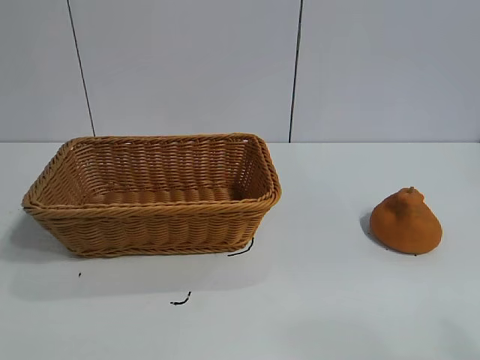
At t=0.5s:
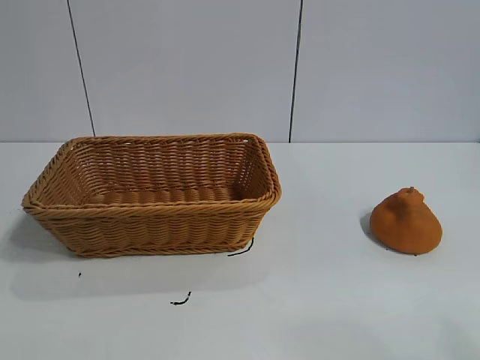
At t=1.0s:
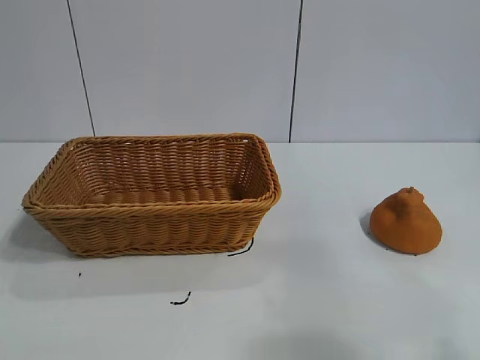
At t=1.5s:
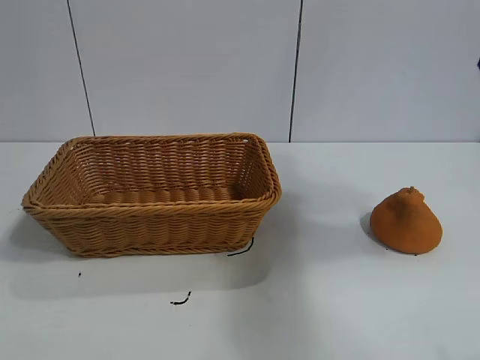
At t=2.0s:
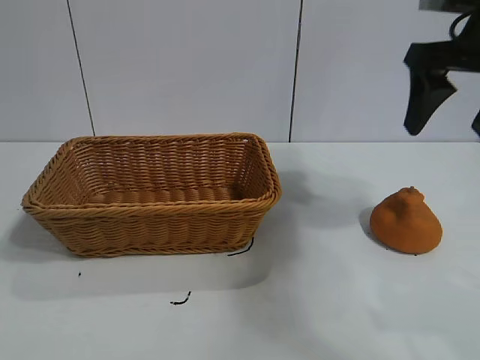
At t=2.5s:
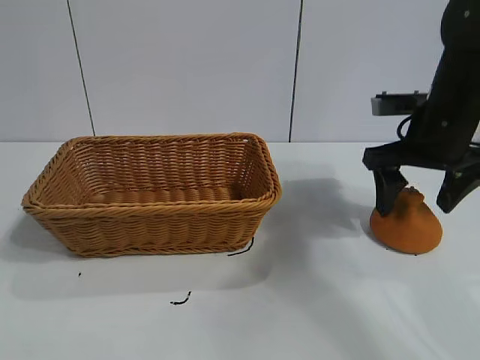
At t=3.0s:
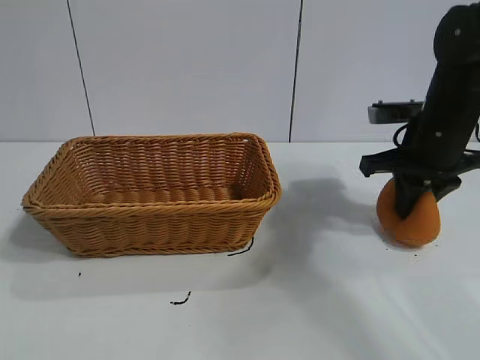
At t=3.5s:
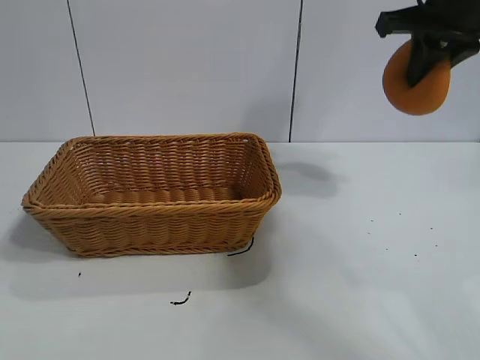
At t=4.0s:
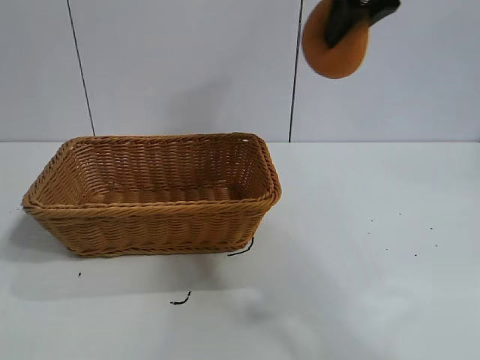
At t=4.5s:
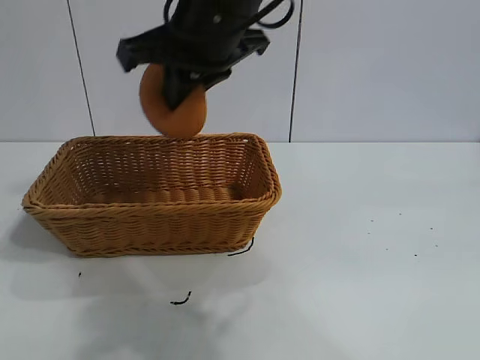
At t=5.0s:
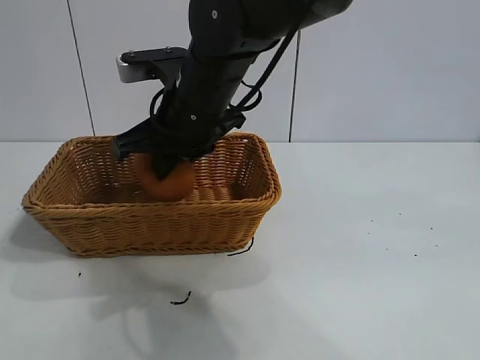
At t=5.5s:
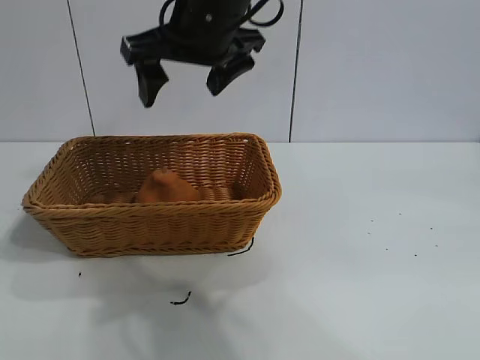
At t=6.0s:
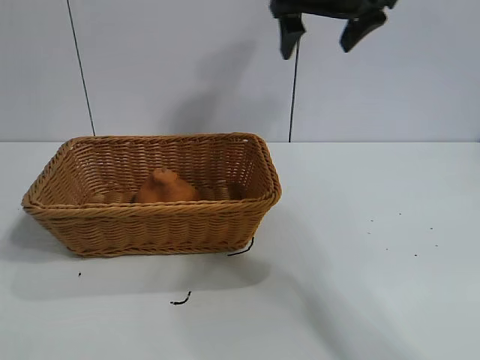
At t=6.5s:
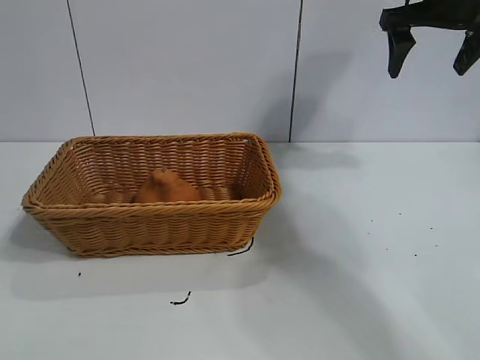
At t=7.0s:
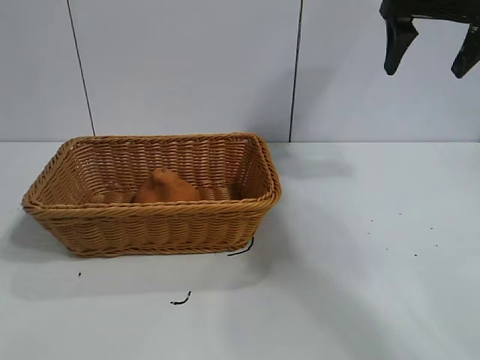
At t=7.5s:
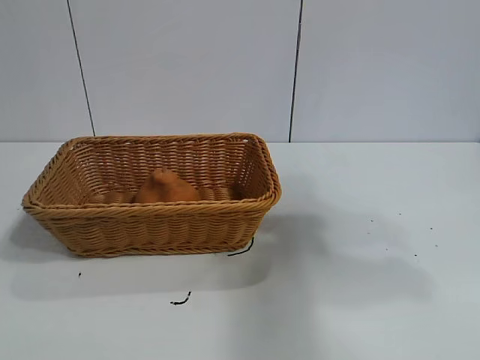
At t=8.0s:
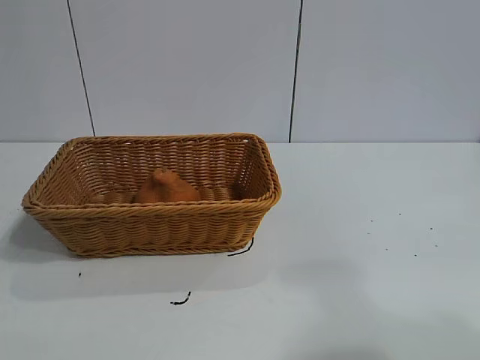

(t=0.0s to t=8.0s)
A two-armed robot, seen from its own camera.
Task of the whole recording: pick up the orange and put it into the basket.
Step, t=1.0s - t=3.0s: Grasp the orange with right gripper.
Step, t=3.5s - t=5.0s: Place the orange in the basket with right gripper.

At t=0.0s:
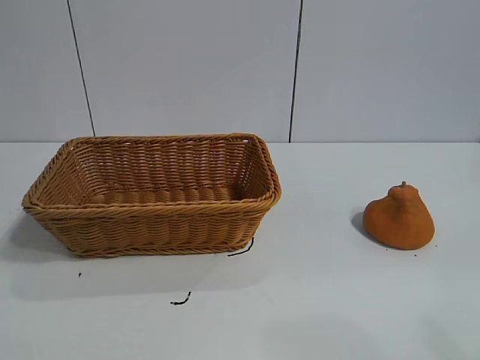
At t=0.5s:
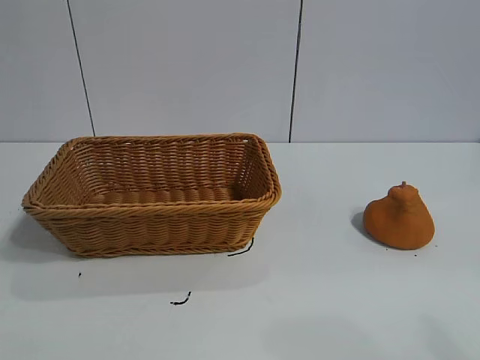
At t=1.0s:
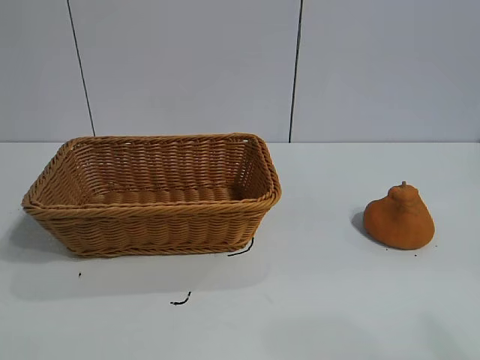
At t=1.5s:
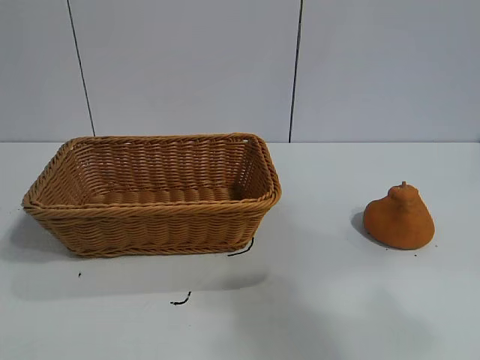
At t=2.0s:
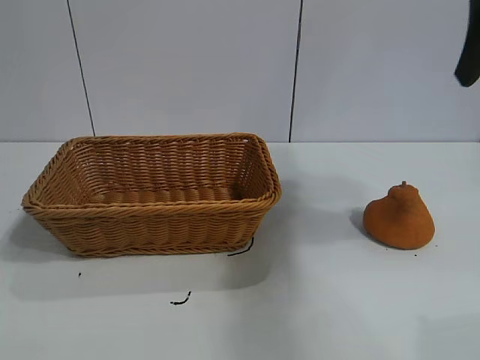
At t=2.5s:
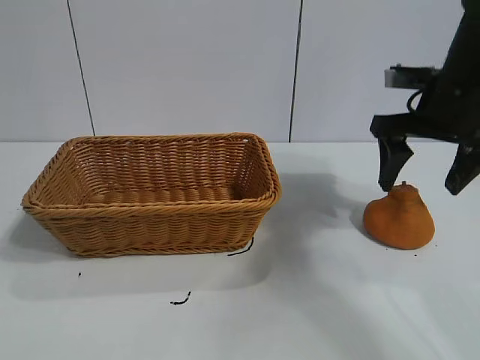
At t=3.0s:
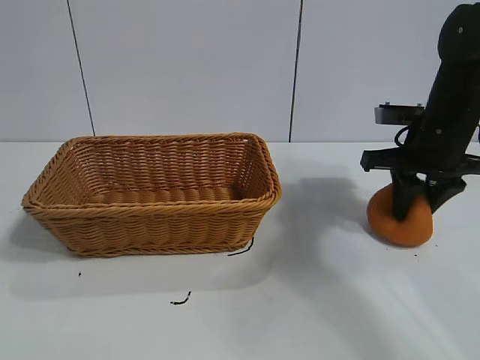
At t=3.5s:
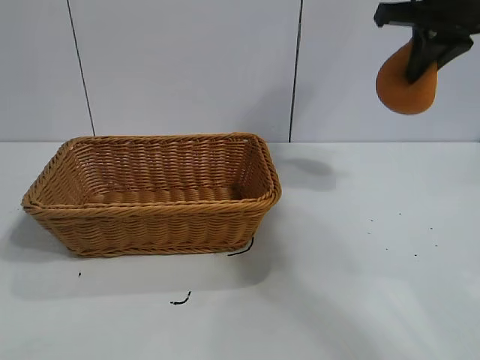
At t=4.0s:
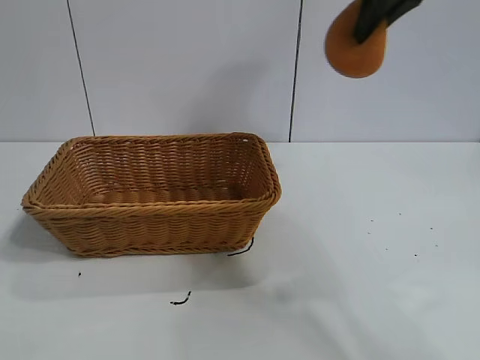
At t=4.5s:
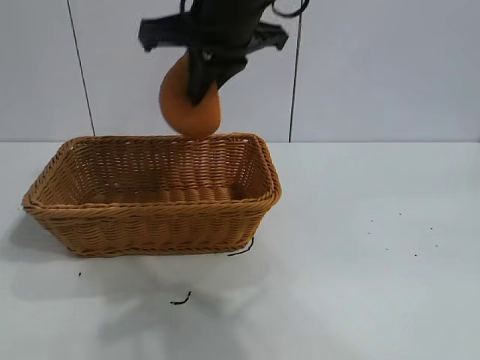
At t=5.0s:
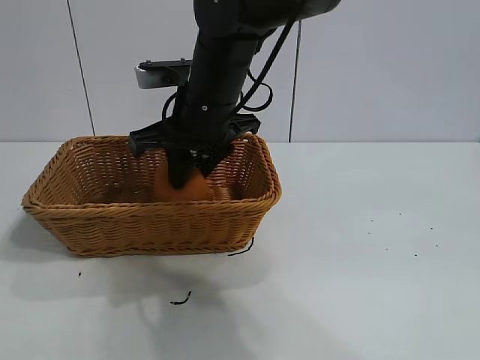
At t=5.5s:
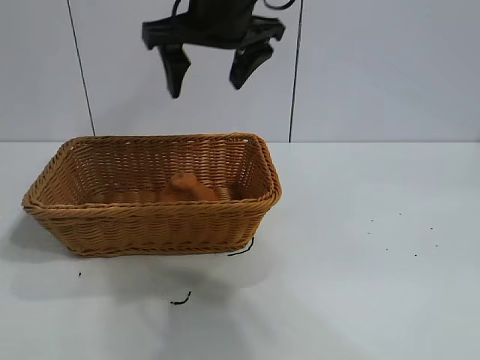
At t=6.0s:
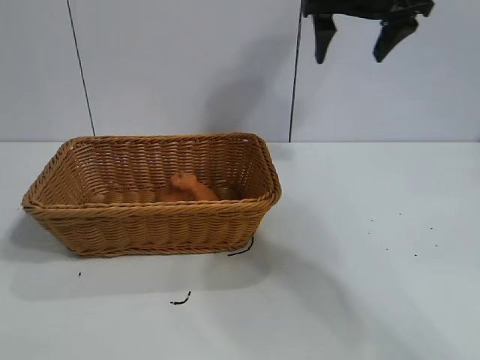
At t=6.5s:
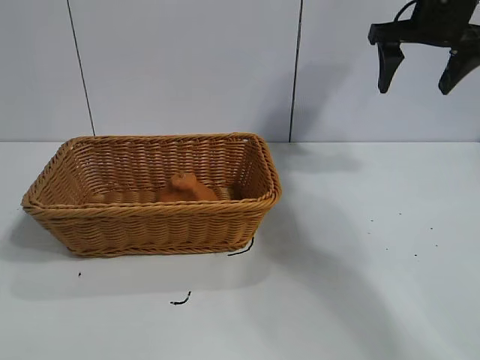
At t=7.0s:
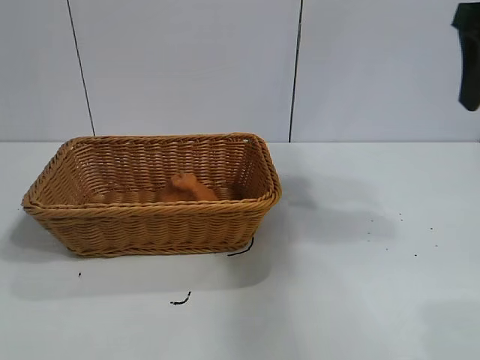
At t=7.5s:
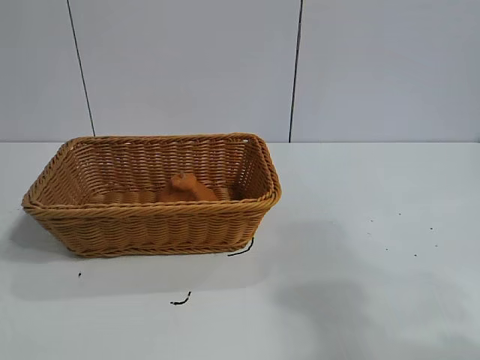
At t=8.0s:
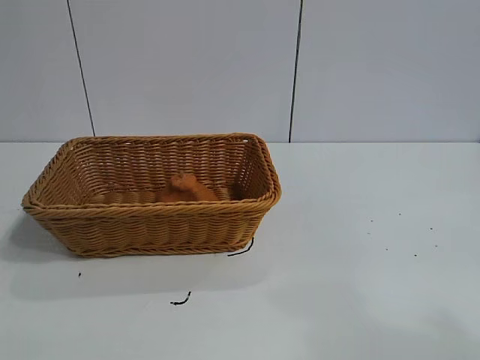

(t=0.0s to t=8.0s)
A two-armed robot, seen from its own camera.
Task of the whole recording: pick up the orange and put it into the basket.
Step, t=1.0s - t=3.0s: Grasp the orange with right gripper.
Step, t=3.5s - t=5.0s: Place the orange in the basket with right gripper.
